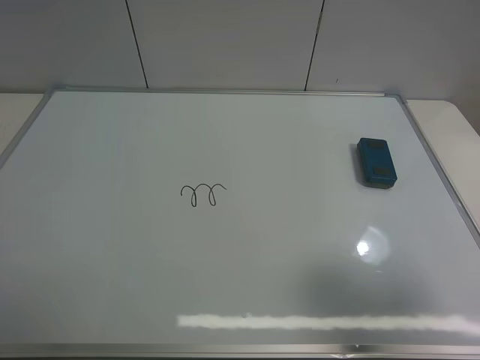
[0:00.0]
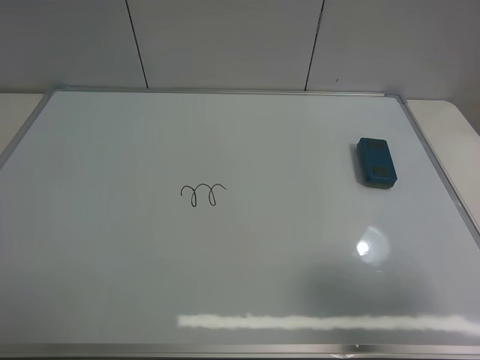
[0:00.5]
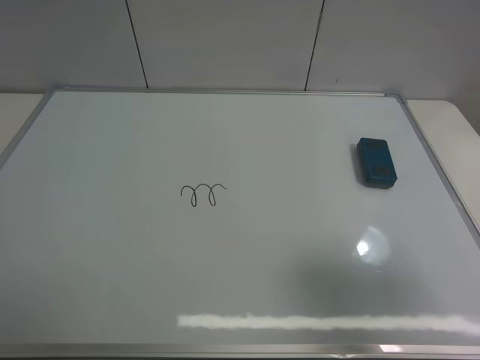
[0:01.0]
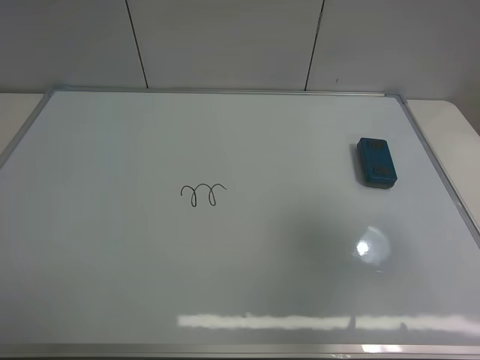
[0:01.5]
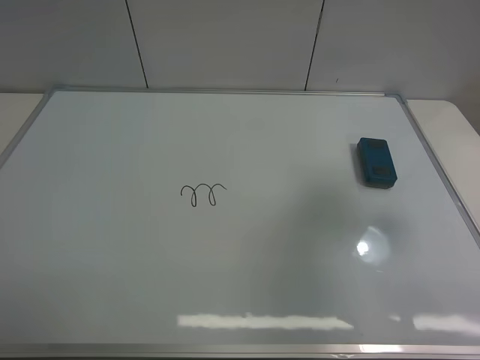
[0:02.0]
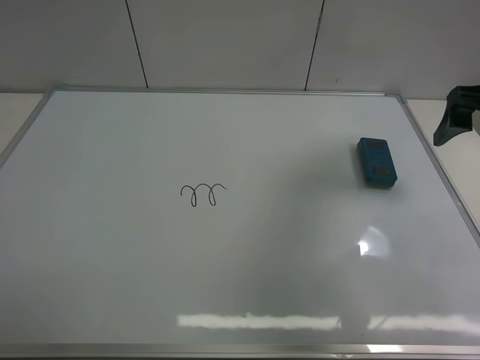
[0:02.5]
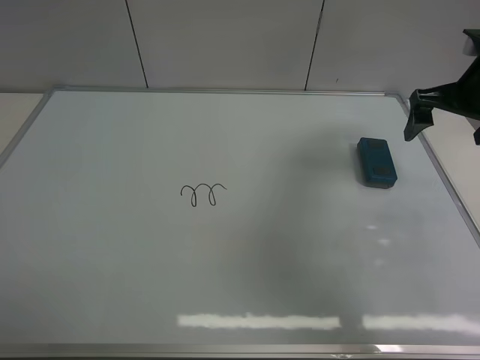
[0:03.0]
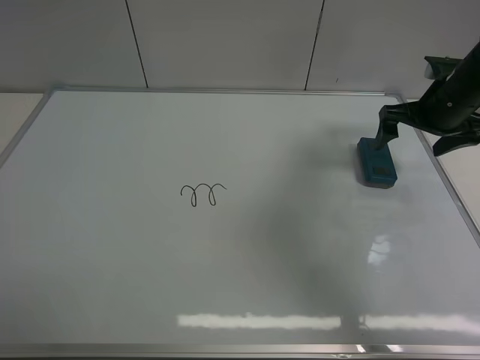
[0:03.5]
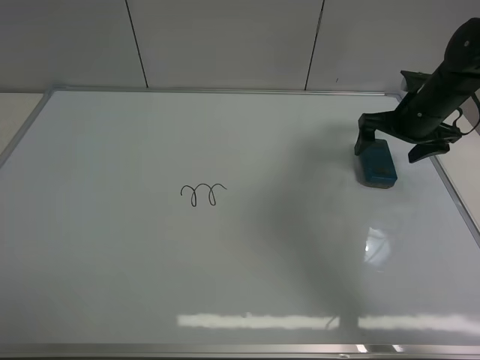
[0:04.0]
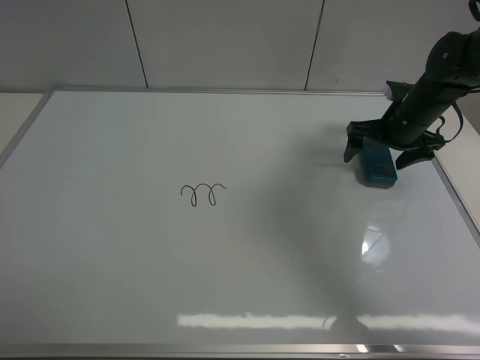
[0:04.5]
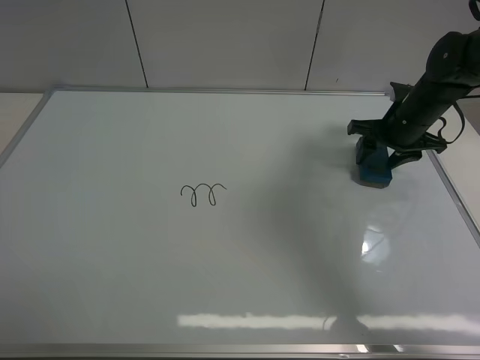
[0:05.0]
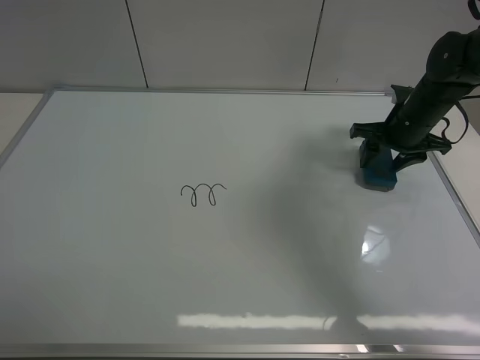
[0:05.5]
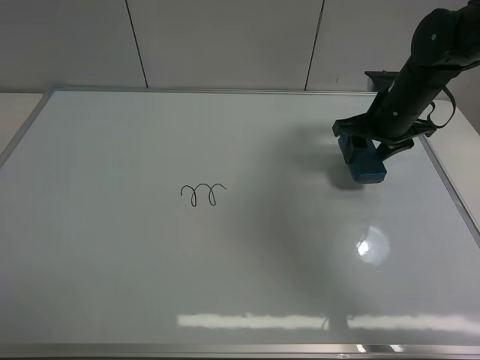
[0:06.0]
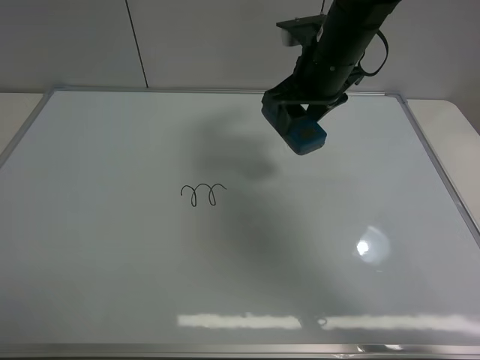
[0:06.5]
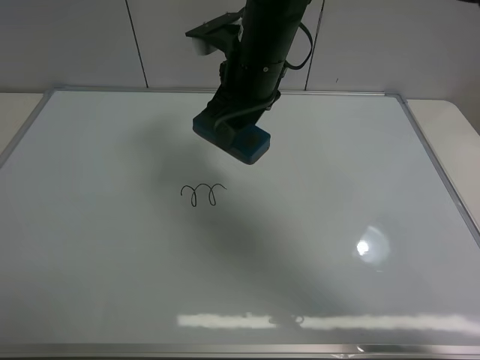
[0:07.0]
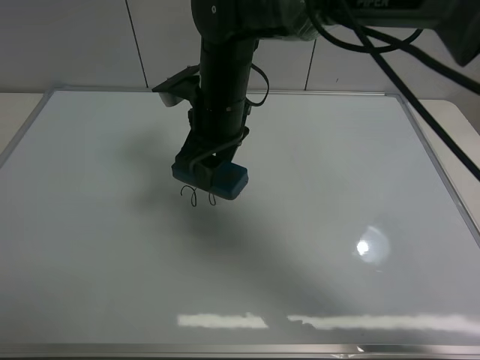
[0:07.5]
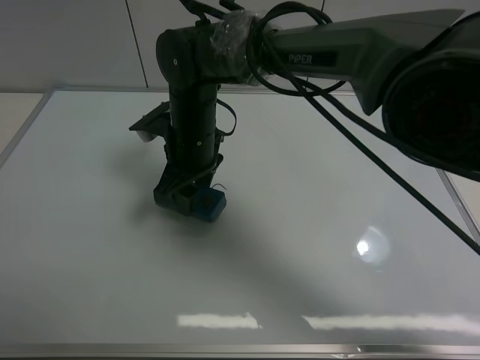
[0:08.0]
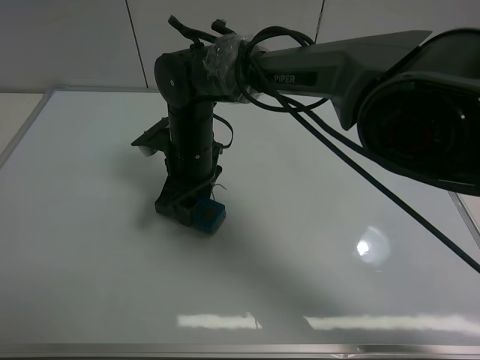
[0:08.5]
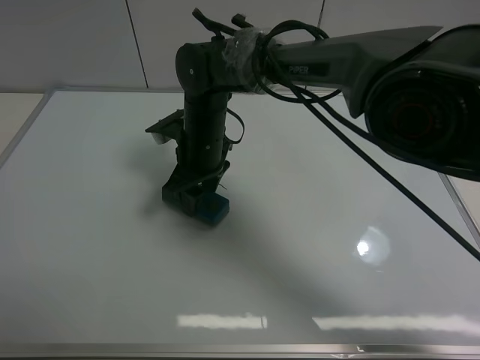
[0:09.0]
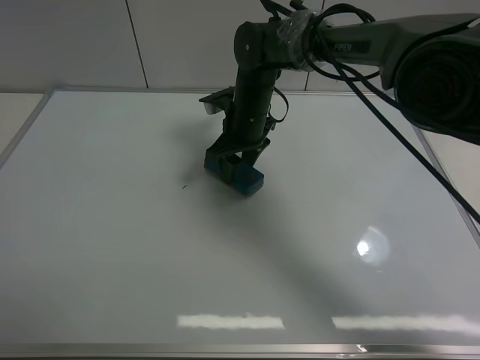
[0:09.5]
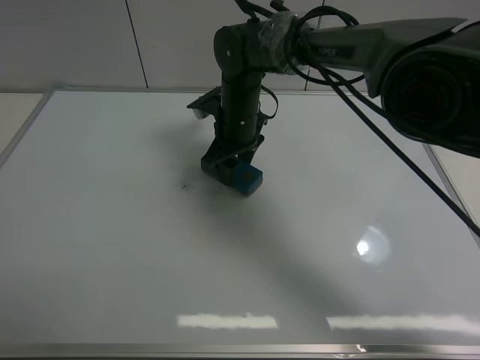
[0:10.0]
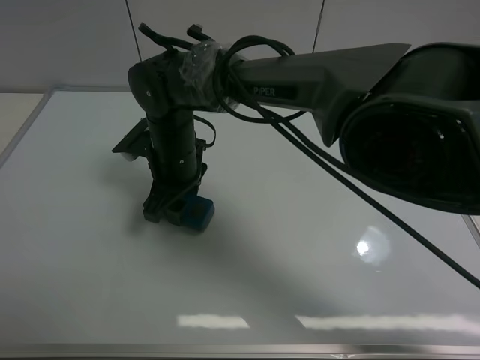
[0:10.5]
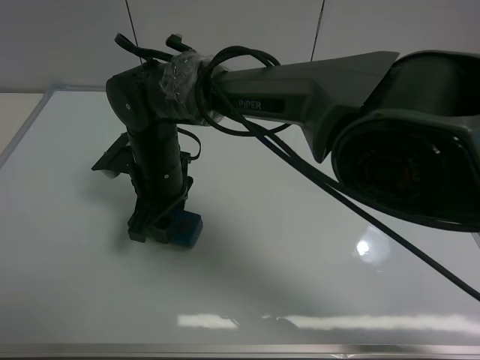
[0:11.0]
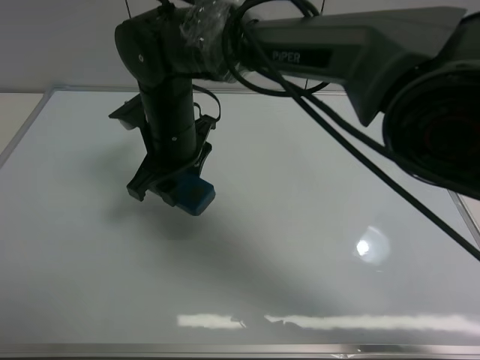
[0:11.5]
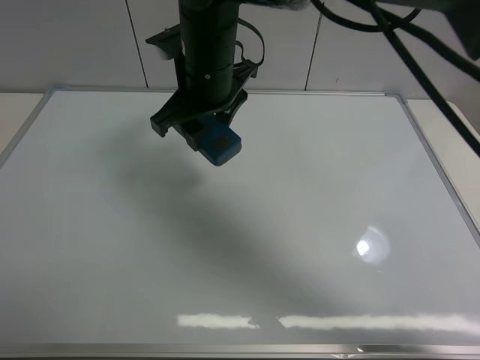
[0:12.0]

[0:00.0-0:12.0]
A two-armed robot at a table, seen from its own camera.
Task of the whole recording: use the right gripper to pick up the board eraser, wipe the notes on the whiteboard clean, and then put them back in place.
Step, 0:00.0 to 0:05.5: Pick up the board eraser with right gripper.
Step, 0:06.0 to 0:11.0: Wipe off the writing on the board with right gripper.
0:00.0 to 0:02.0: The right gripper heads forward, covering roughly 15 cm.
0:02.0 to 0:04.0: The right gripper shifts approximately 25 cm forward and downward.
0:04.0 to 0:06.0: The right gripper travels to the left by about 5 cm, and closes.
0:06.0 to 0:08.0: The right gripper is displaced to the left by about 30 cm.
0:08.0 to 0:10.0: The right gripper goes some 10 cm forward and to the right.
0:10.0 to 0:12.0: The right gripper moves upward and backward, roughly 15 cm.

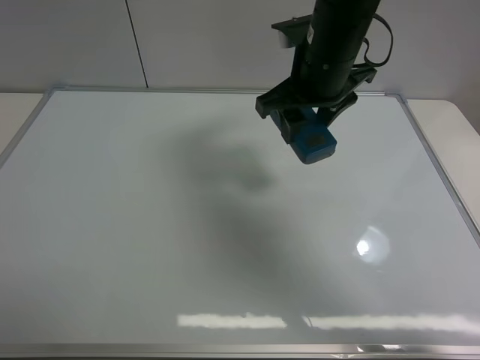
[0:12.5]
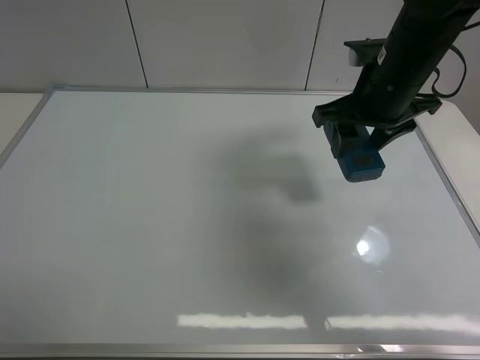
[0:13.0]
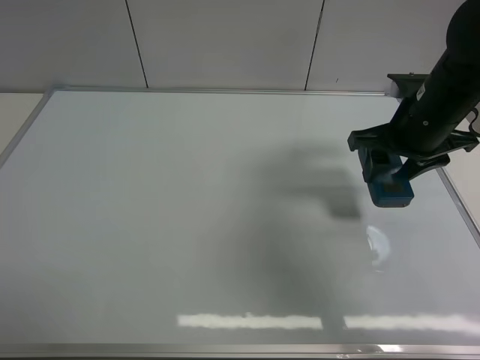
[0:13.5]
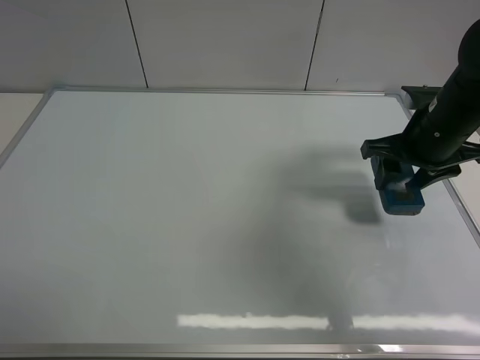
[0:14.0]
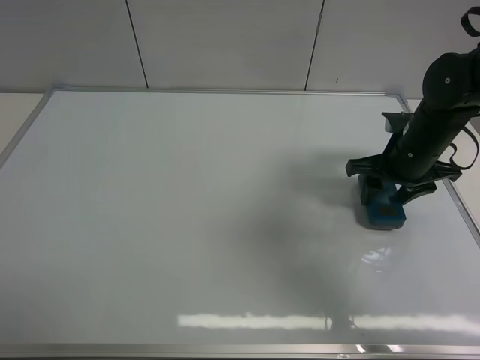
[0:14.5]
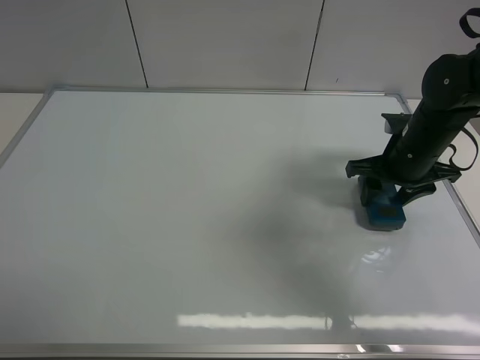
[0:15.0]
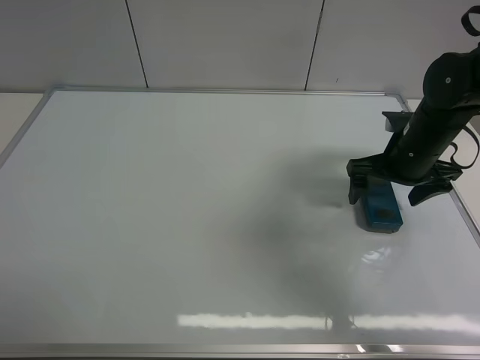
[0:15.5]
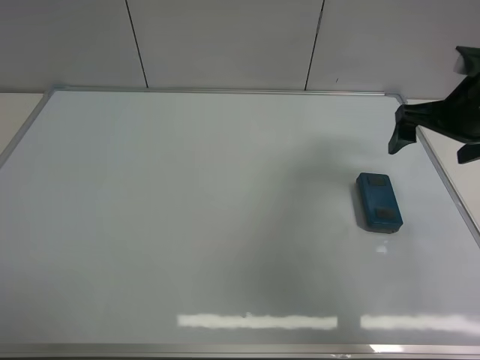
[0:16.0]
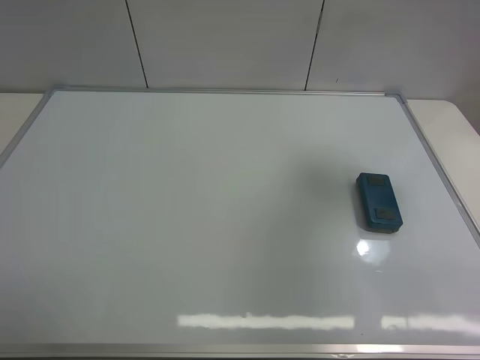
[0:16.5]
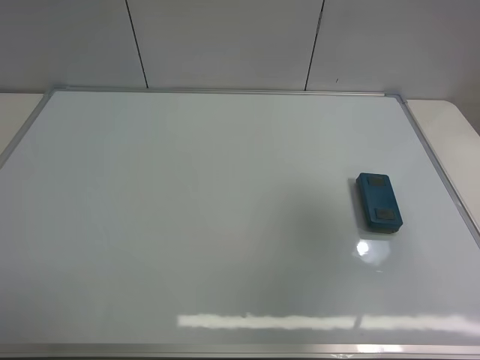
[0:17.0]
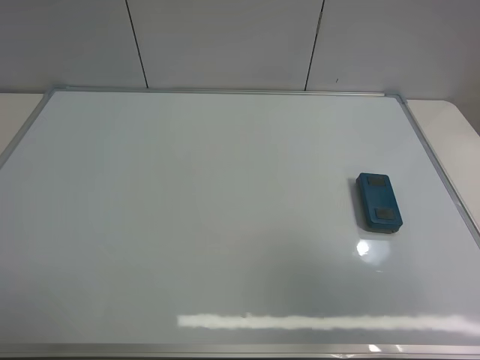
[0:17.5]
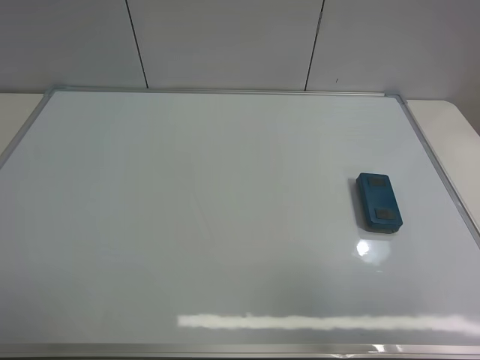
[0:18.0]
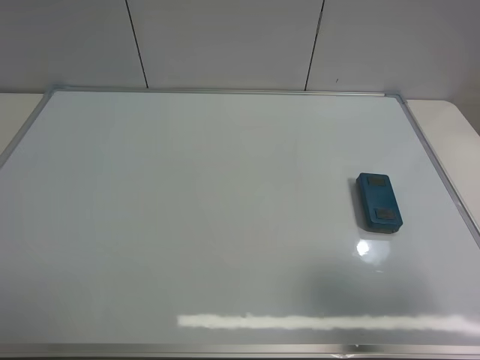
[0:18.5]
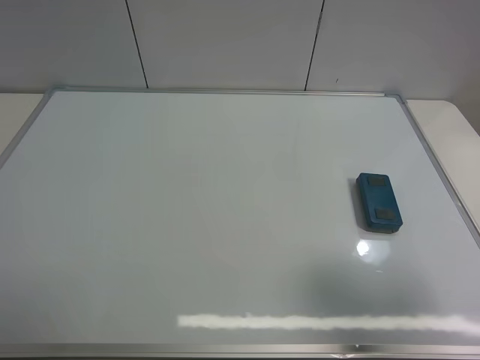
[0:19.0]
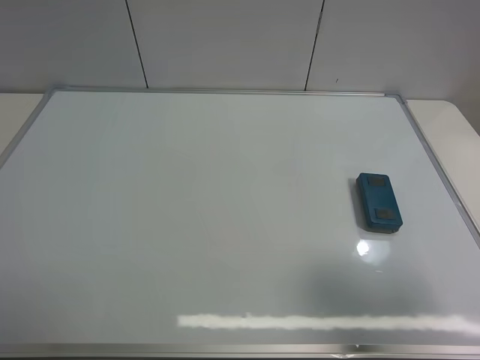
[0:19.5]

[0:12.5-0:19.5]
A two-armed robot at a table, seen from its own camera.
Task of the whole recording: use the right gripper to pick up the board eraser, wipe the notes on the whiteboard clean, and then put them back in place.
Step, 0:12.5 to 0:15.0: Place the board eraser on the right side of board with right gripper.
0:12.5 to 0:14.5: The right gripper travels to the right and downward by about 20 cm.
0:14.5 to 0:16.0: The right gripper travels upward by approximately 10 cm, and opens.
0:16.0 to 0:17.5: The right gripper shifts some 35 cm backward and upward.
0:17.5 to 0:19.5: The right gripper shifts approximately 10 cm downward.
